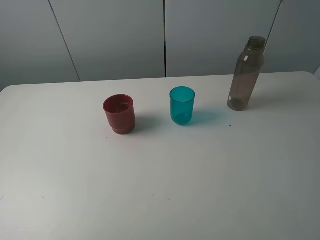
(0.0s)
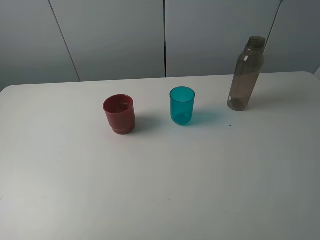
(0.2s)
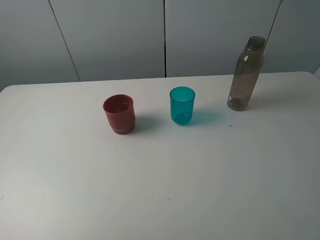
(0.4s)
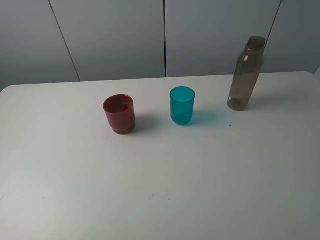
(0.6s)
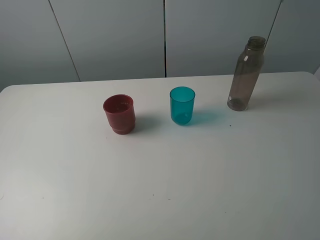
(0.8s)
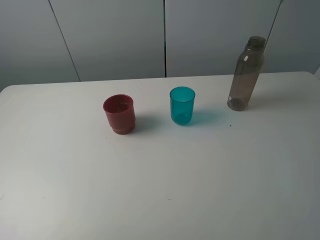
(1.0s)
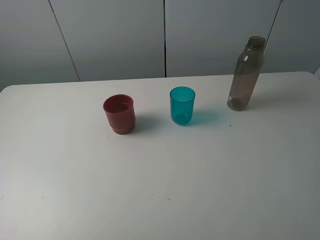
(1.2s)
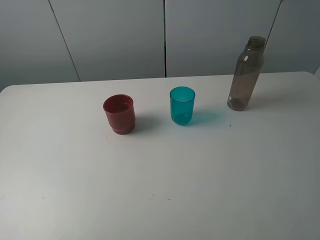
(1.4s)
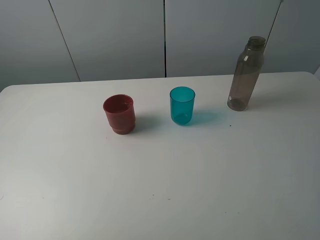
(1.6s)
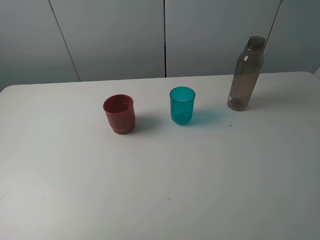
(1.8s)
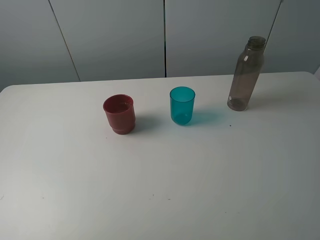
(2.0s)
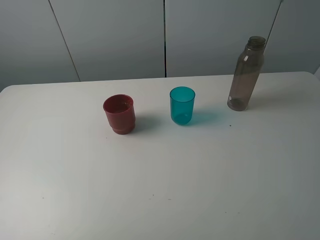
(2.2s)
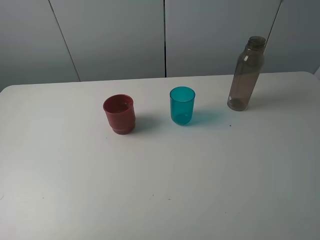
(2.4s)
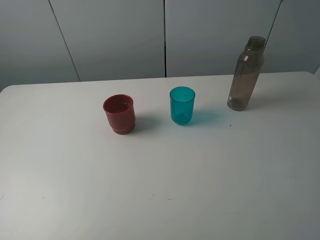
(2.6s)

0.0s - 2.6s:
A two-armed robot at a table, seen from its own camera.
Task of the whole recording: pick up the bottle and pour water into the cup, then pick up the cup containing water and pour it into another cup.
1.2s - 2.6s: Neither gripper changes place.
